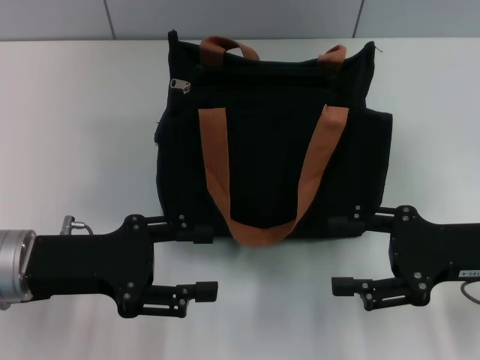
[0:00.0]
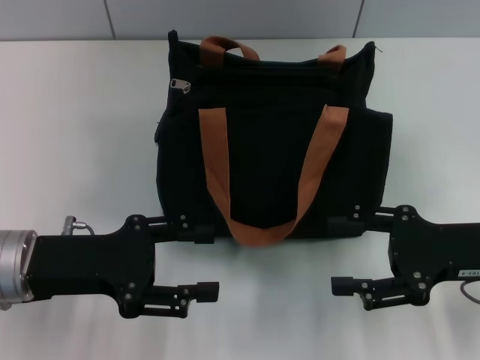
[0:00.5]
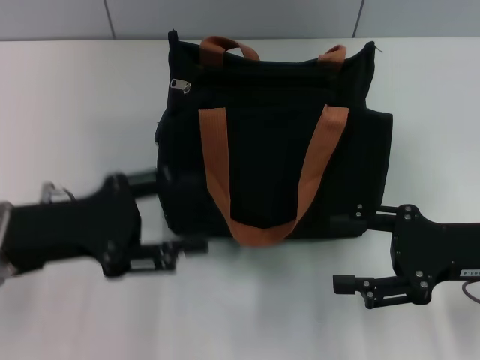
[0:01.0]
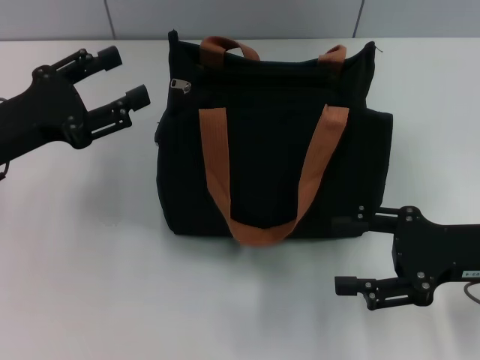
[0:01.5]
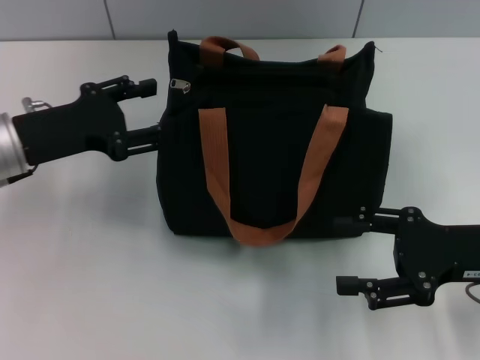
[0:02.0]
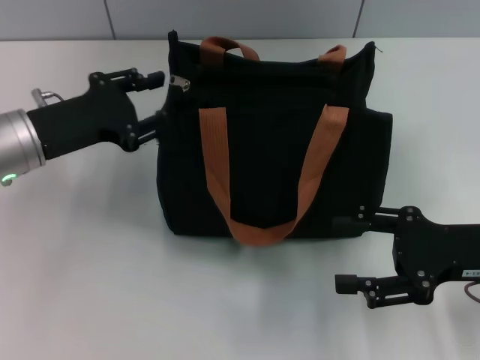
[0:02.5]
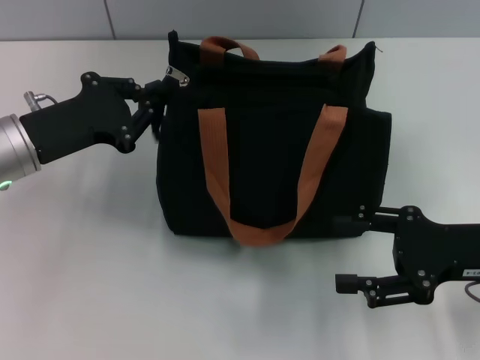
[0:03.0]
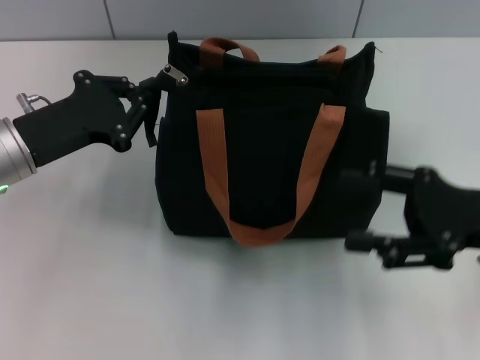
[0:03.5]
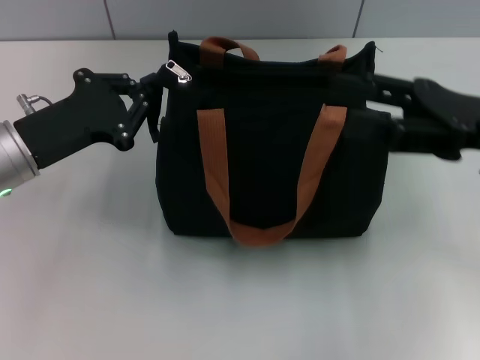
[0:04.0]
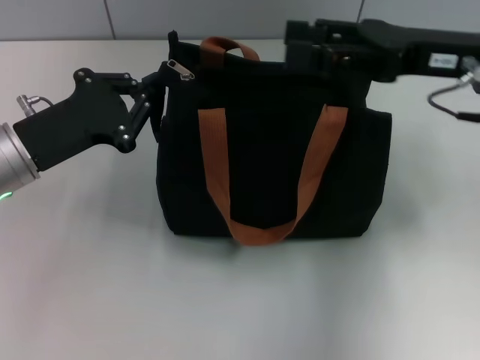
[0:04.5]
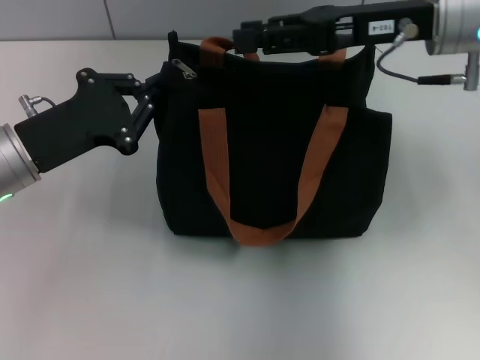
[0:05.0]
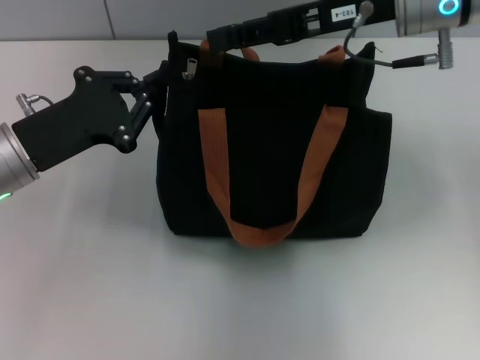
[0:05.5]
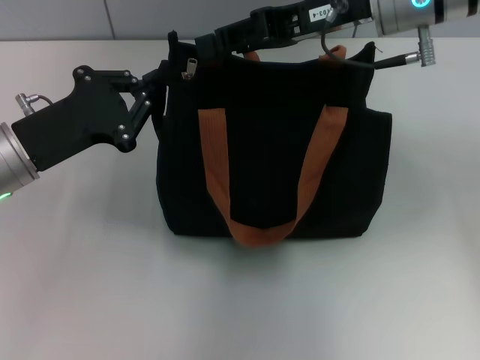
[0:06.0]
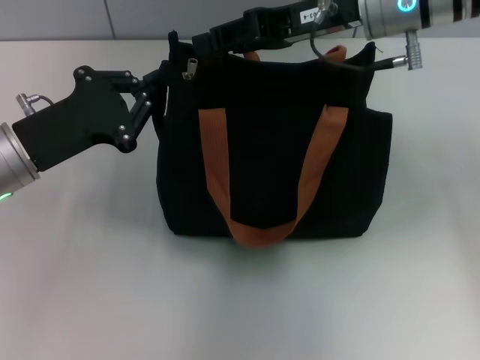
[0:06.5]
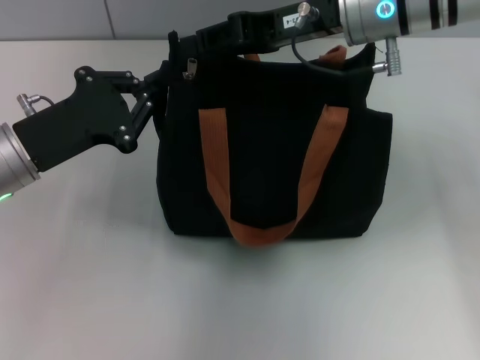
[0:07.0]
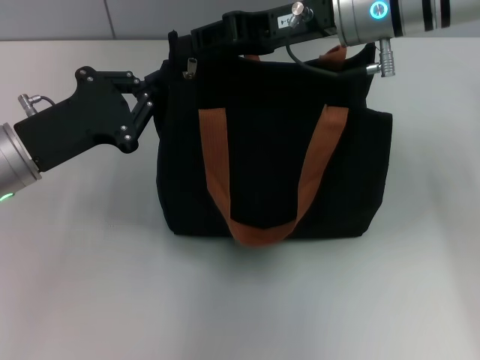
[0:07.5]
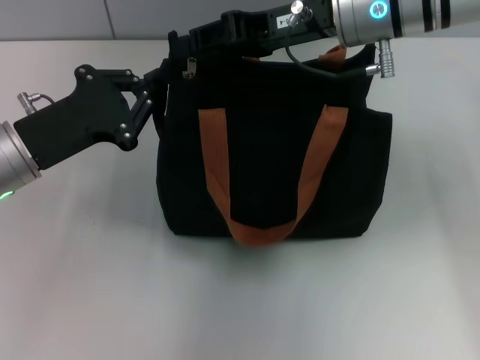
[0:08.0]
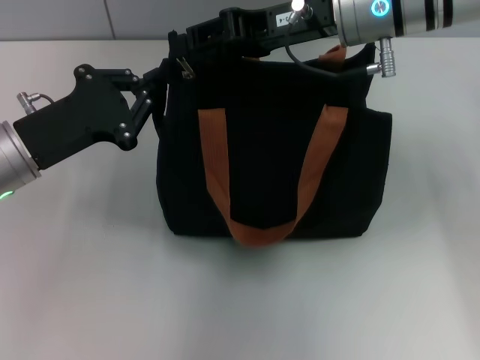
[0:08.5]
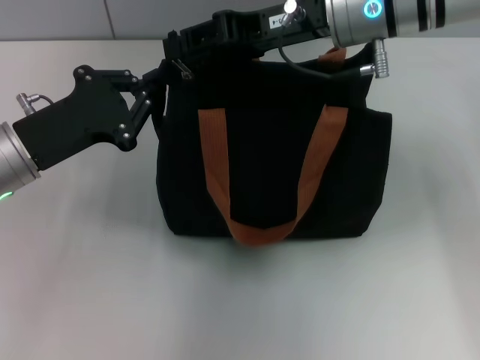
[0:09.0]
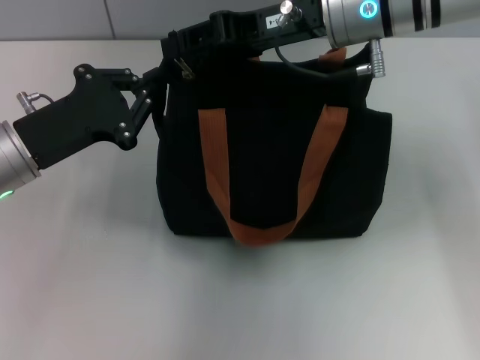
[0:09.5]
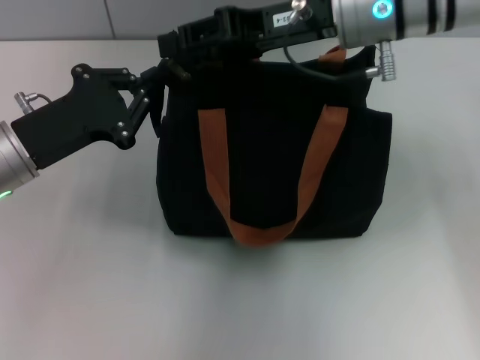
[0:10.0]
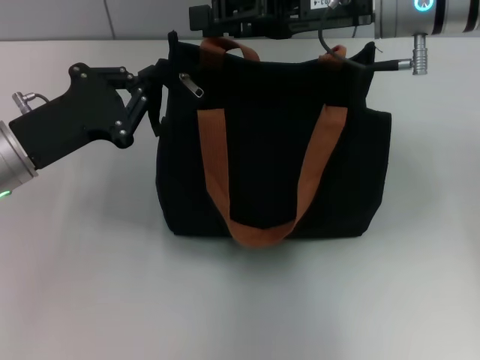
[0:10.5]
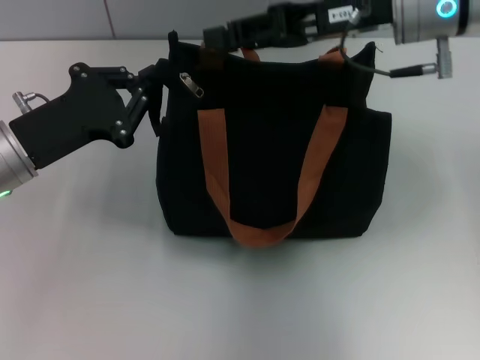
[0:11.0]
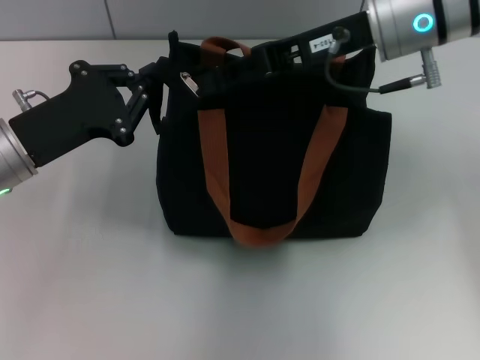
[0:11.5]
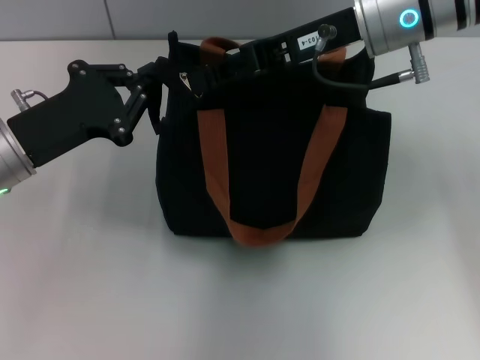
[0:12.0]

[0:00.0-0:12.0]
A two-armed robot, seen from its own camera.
0:00.0 to 0:02.0: The left gripper travels forward by roughly 10 cm.
0:02.0 to 0:04.0: The right gripper travels upward and forward by about 10 cm, while the left gripper closes its fingers.
0:04.0 to 0:06.0: The right gripper is displaced to the left, forward and upward by roughly 15 cm, and closes.
0:06.0 to 0:12.0: The grippers stay close to where they were, moving slightly.

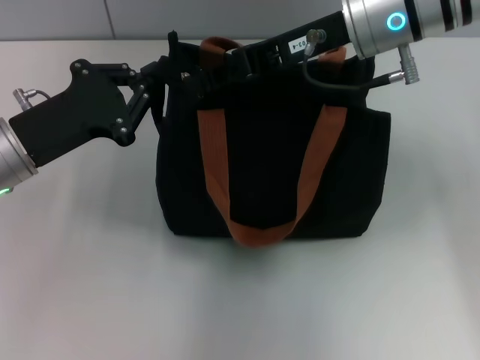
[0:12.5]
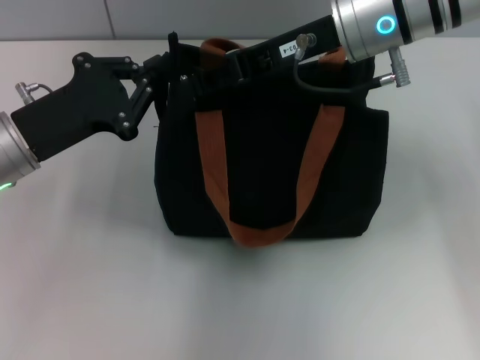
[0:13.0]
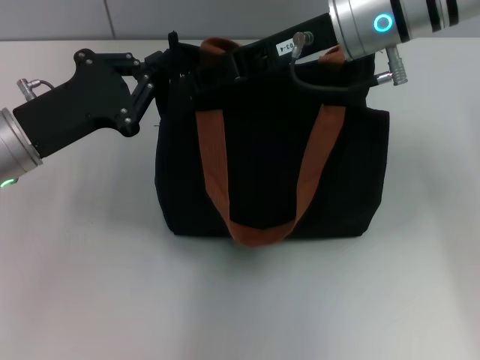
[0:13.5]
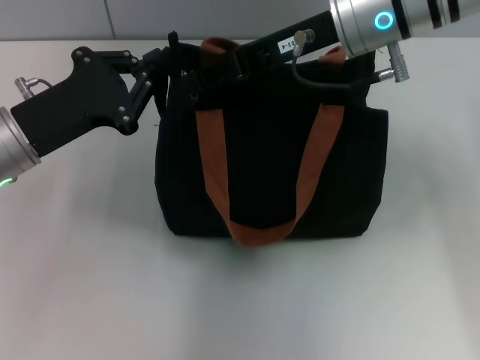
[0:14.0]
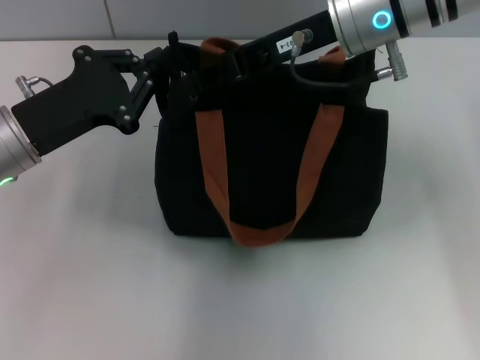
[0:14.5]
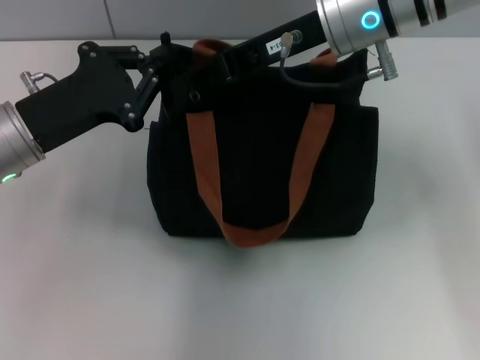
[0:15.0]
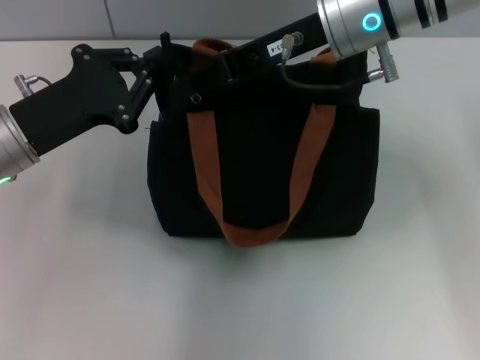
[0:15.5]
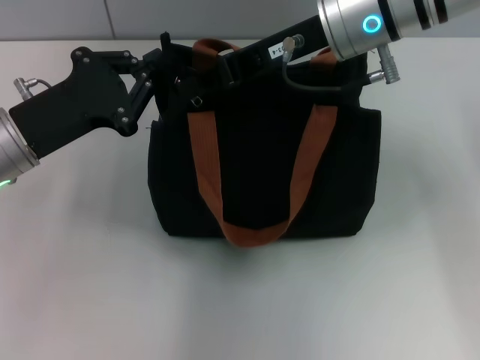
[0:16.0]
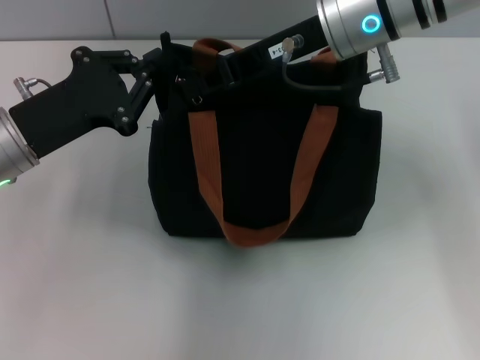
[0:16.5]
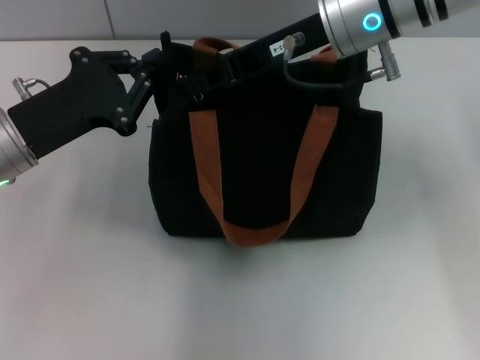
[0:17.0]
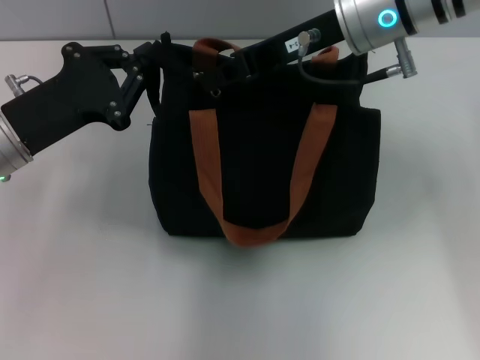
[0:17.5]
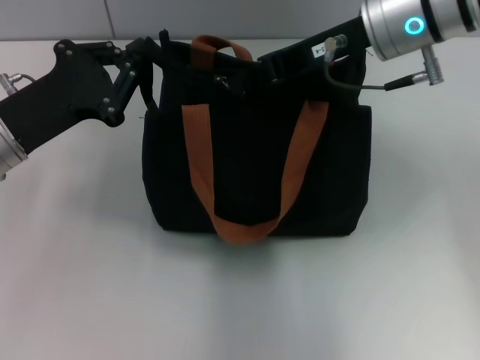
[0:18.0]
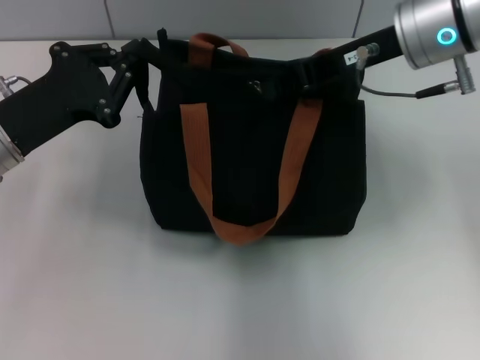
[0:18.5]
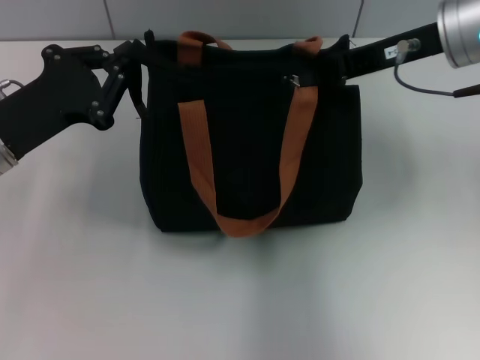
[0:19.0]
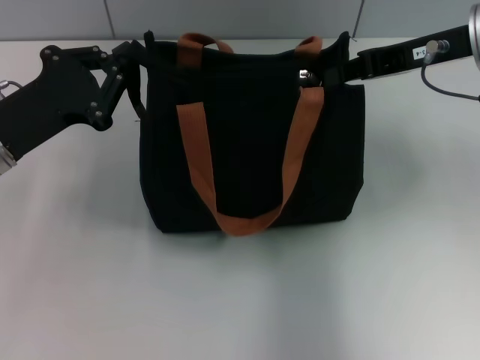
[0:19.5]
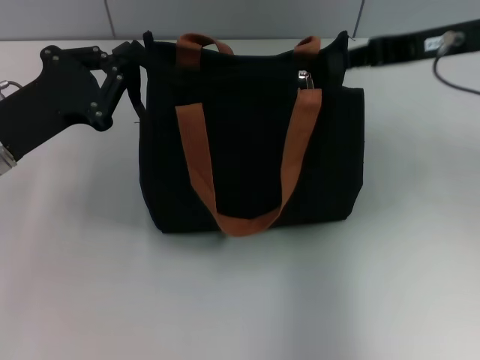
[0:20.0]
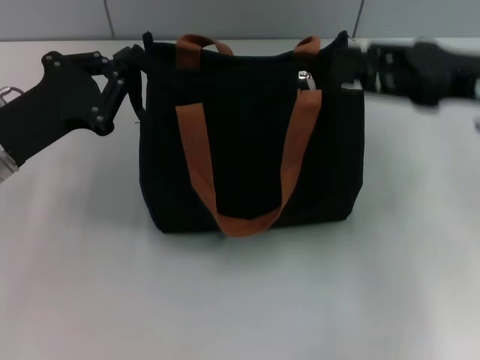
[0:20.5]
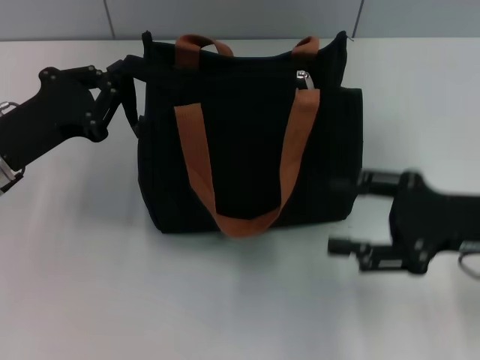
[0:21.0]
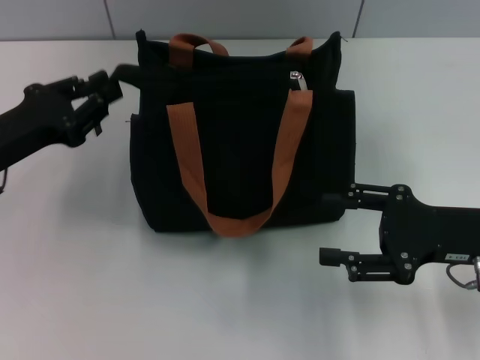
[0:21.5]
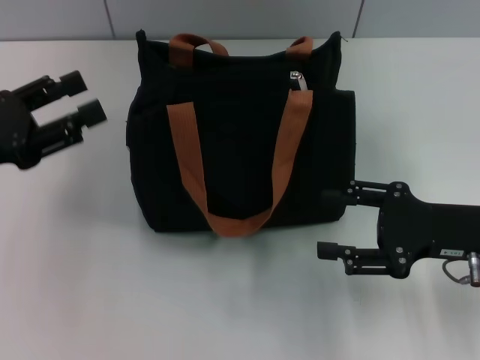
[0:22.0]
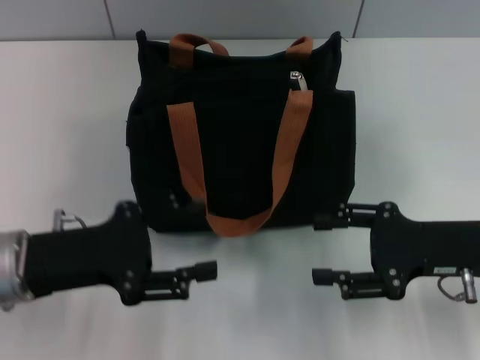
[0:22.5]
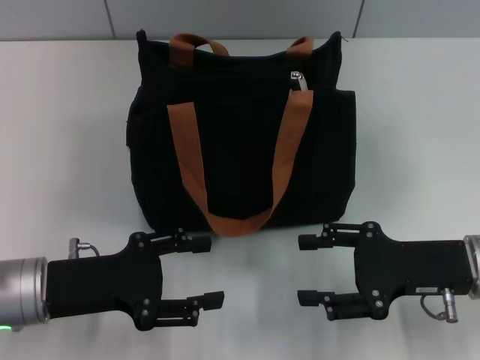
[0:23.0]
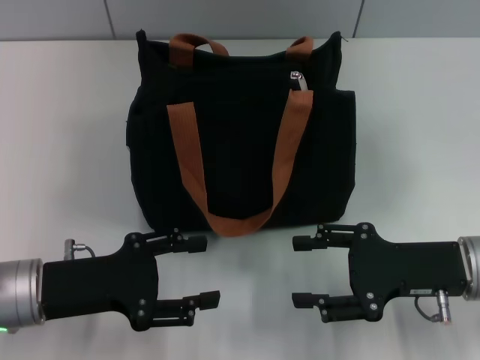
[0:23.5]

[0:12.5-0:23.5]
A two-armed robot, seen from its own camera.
Step, 0:12.5 to 0:20.0: Pull up the zipper with your right hand.
Step, 0:20.5 to 0:21.5: Grab the zipper with your left hand.
0:12.5 to 0:14.5: Both grippers stay put.
0:14.5 to 0:16.0: The two grippers keep their place.
0:16.0 to 0:18.0: The grippers make only small movements.
0:18.0 to 0:20.0: The right gripper shifts approximately 10 cm to the right.
0:20.0 to 0:21.5: The right gripper goes some 20 cm downward and backward, and opens.
0:21.5 to 0:23.5: The left gripper heads backward and to the right, covering approximately 10 cm, and opens up.

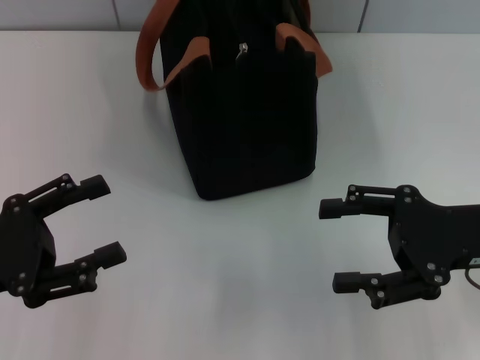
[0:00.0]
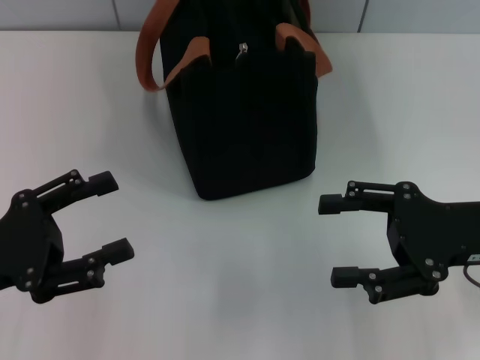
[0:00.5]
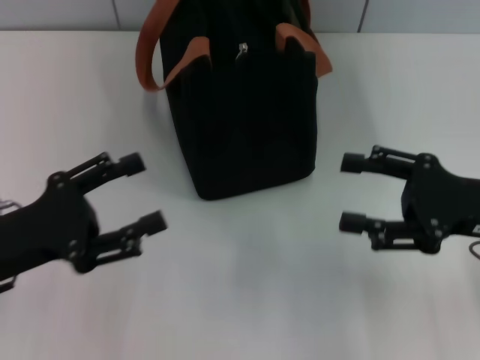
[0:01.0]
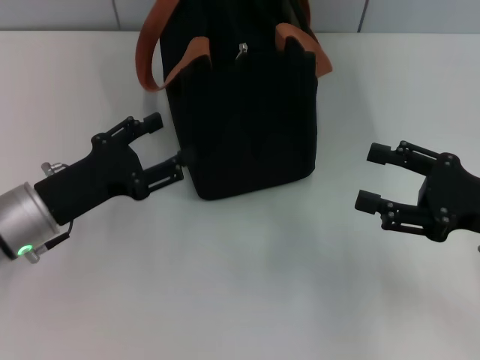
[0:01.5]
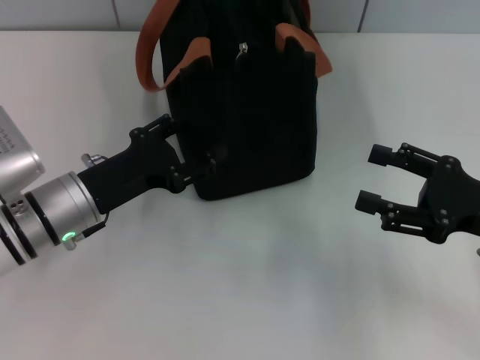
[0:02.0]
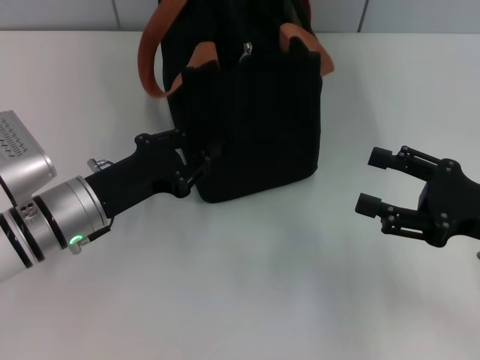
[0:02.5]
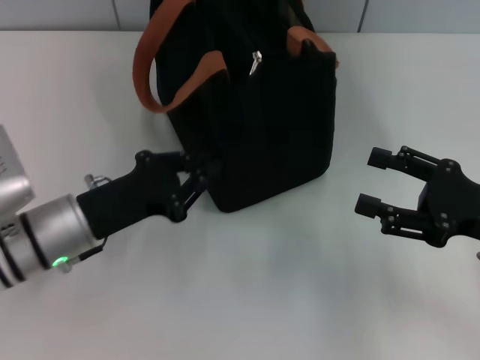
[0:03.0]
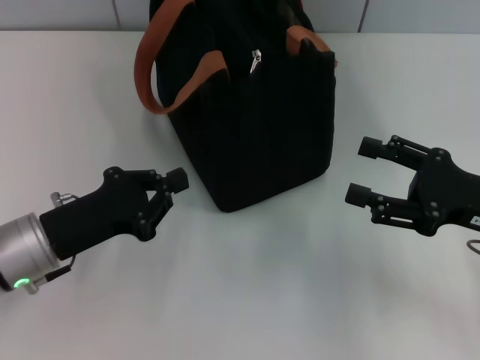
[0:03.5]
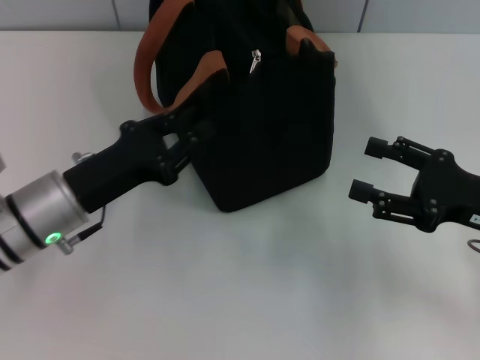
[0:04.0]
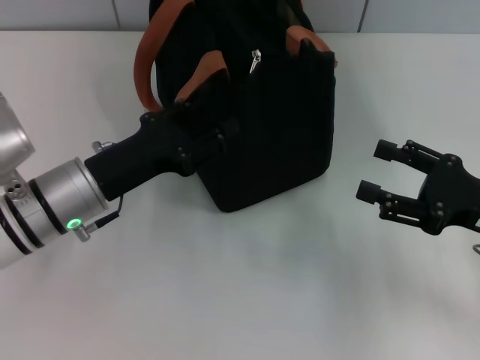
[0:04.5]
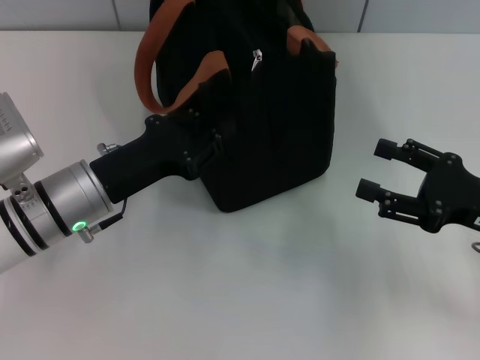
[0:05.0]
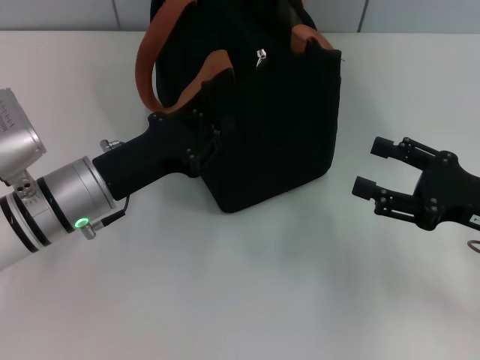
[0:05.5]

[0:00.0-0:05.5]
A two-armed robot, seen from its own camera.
0:00.0 to 0:02.0: The left gripper shifts approximately 15 cm forward, to the right and downward.
0:02.0 to 0:03.5: The left gripper changes place by about 5 cm, and closes up.
0:03.5 to 0:05.5: The left gripper shifts by some 5 cm, and opens, then closes again.
